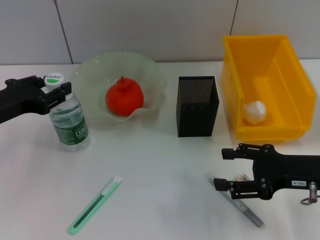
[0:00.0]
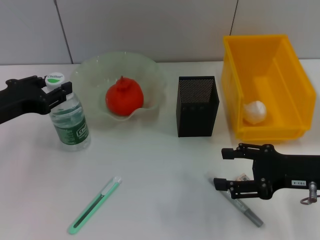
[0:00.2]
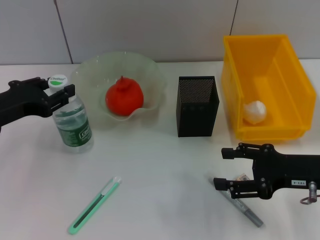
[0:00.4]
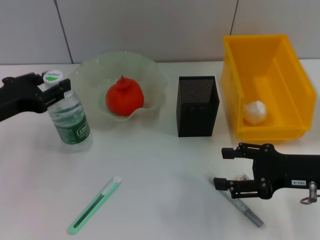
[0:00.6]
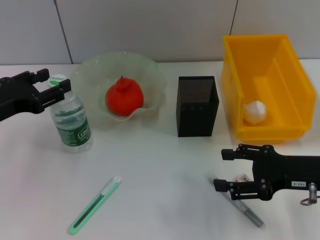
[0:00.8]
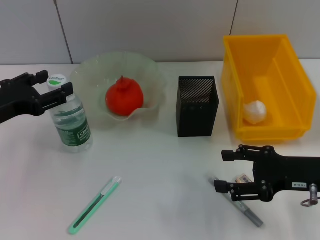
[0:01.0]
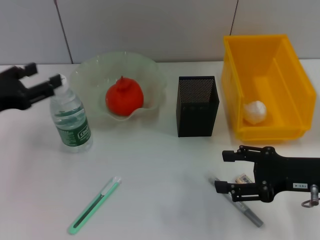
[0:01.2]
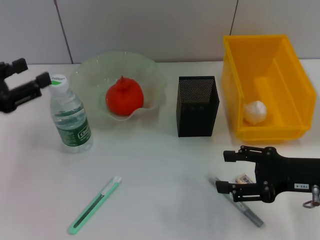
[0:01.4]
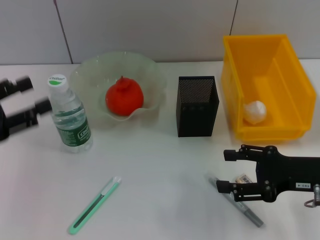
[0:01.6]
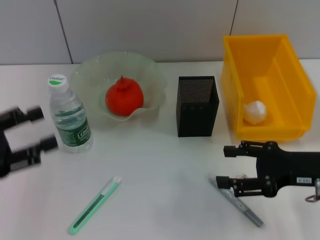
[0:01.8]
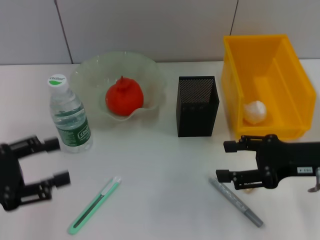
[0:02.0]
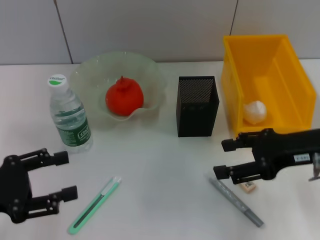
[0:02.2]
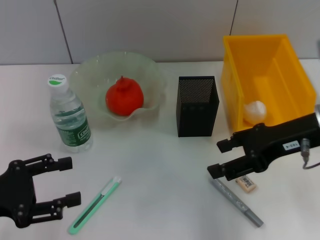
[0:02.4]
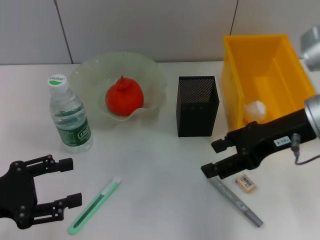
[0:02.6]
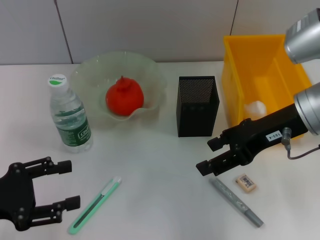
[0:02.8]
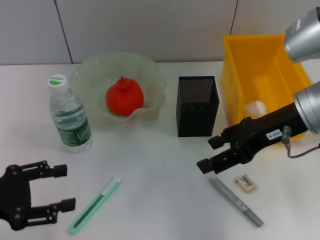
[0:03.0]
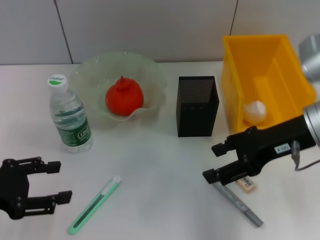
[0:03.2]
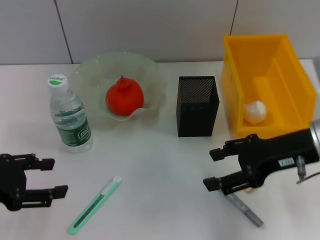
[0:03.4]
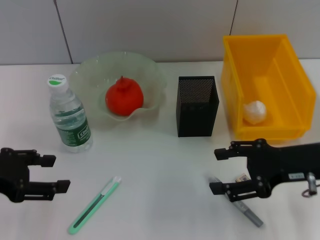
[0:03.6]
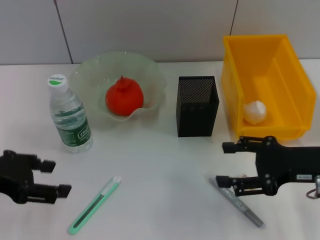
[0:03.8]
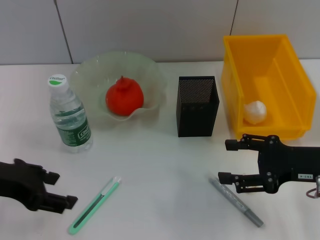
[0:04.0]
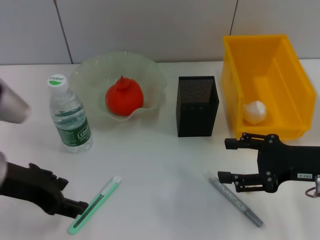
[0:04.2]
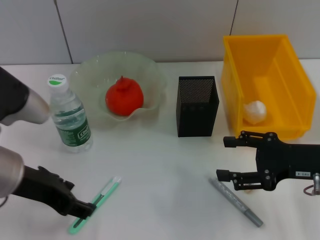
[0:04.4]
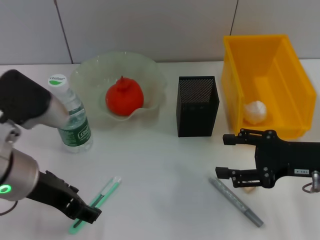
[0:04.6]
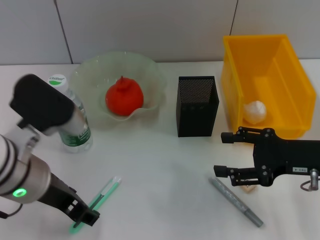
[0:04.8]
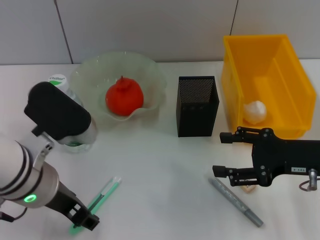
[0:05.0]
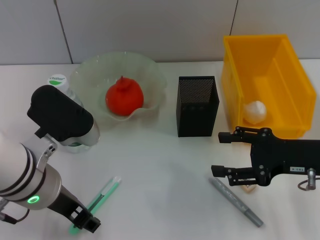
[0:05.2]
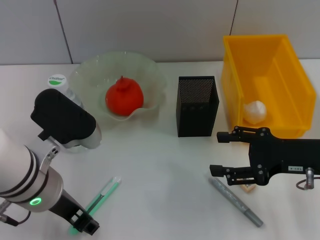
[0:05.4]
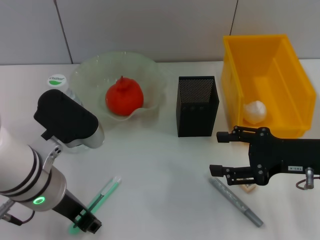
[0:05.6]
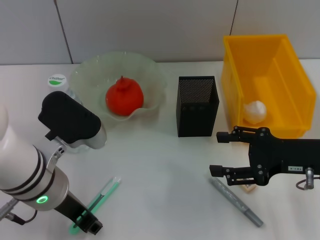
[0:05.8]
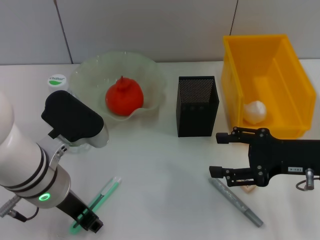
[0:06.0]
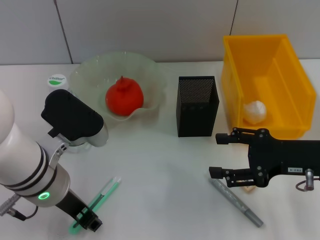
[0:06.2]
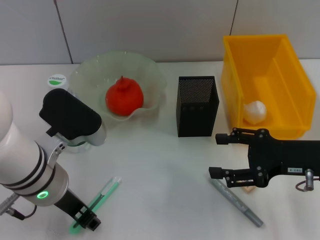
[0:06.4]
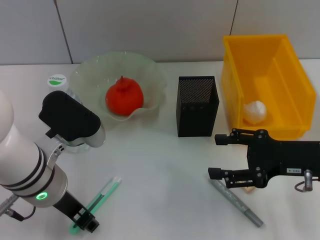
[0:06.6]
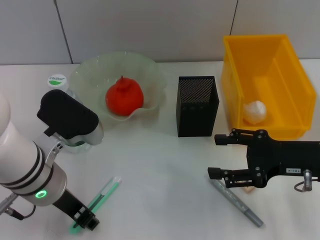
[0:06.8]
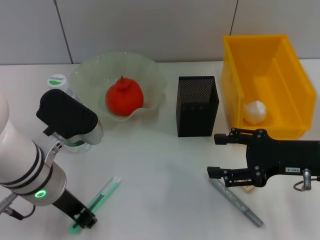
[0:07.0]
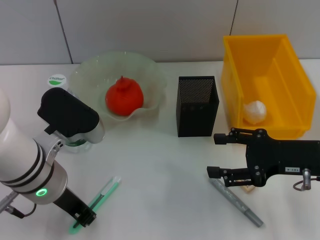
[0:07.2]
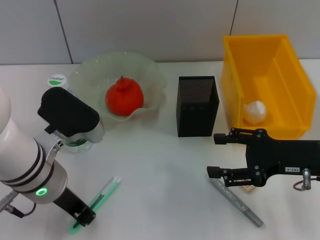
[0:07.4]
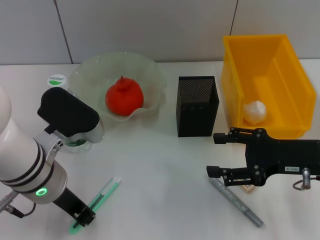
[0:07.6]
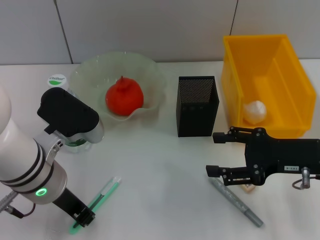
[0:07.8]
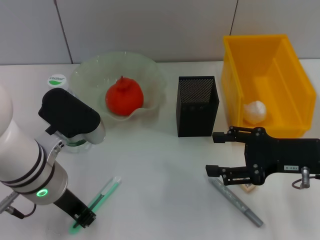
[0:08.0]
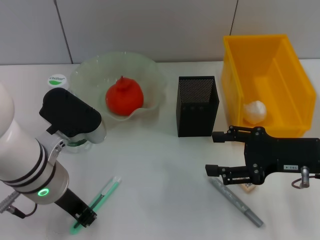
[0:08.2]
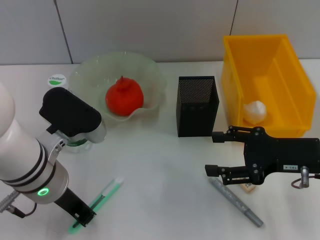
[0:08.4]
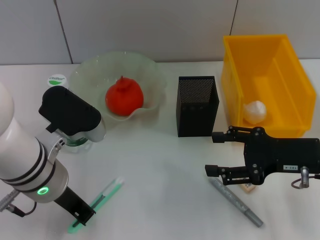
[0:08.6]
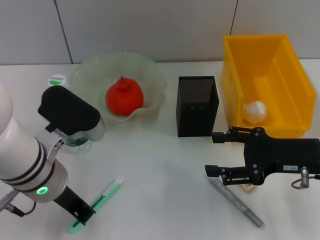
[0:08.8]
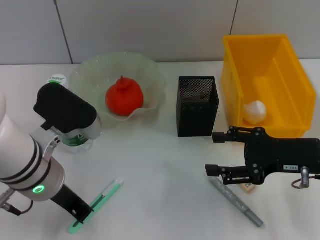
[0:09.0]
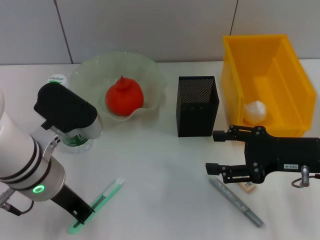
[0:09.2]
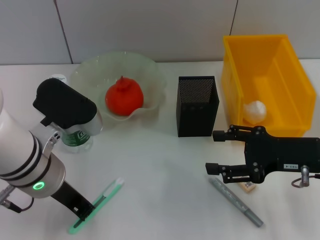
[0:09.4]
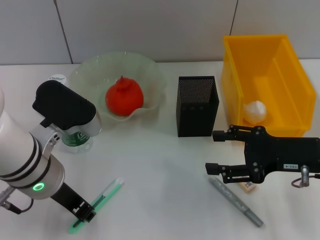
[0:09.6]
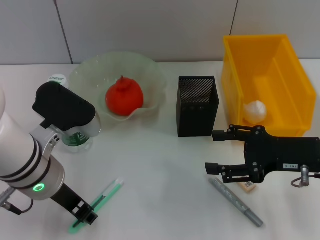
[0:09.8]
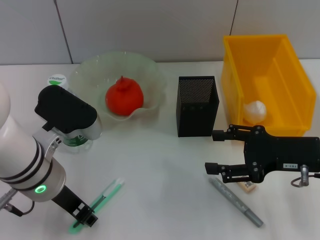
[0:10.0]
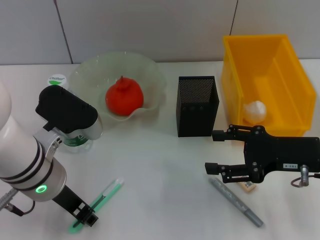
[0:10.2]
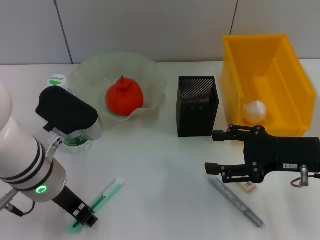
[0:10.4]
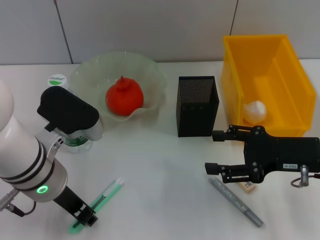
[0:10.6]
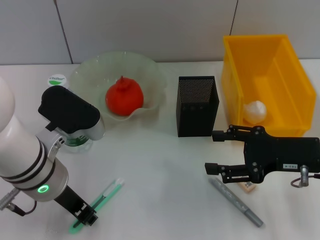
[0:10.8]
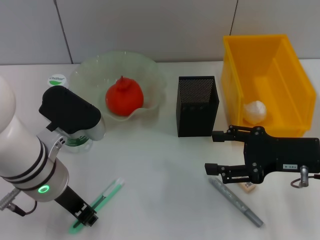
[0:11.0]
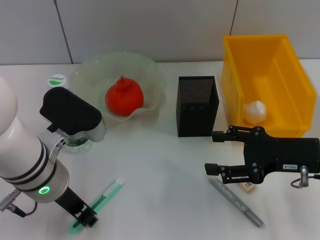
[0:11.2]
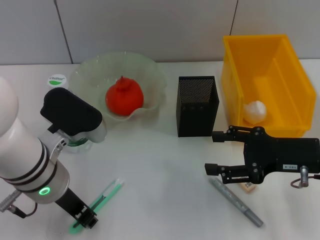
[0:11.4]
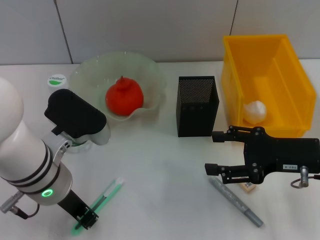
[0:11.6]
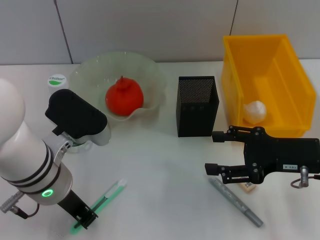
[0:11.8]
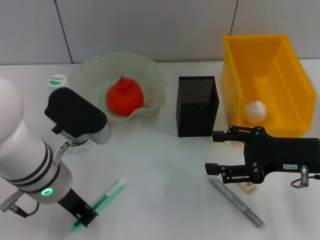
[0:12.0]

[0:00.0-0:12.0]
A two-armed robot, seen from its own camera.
0:00.0 to 0:01.6: The left gripper is displaced backward by approximately 5 cm, and opens its fingers.
0:01.6 to 0:03.0: The right gripper heads upward, to the left and forward, covering roughly 15 cm.
0:03.0 to 0:04.4: The left gripper goes approximately 15 cm to the right and upward. The right gripper goes about 10 cm downward and to the right.
0:04.4 to 0:06.0: The left gripper goes about 5 cm to the right.
0:06.0 to 0:07.6: The left gripper closes up.
0:07.6 to 0:09.0: Both grippers stay about where they are.
0:09.0 to 0:10.4: The left gripper opens up.
0:10.4 to 0:12.0: The left gripper closes up.

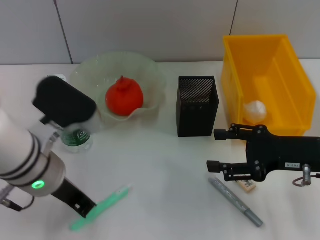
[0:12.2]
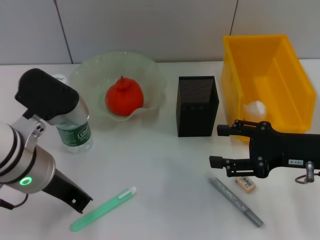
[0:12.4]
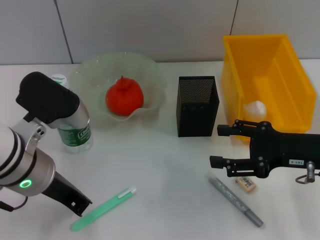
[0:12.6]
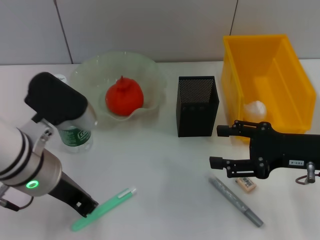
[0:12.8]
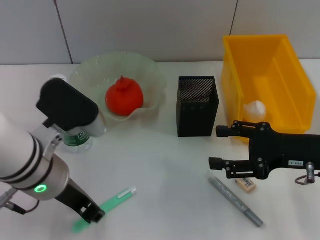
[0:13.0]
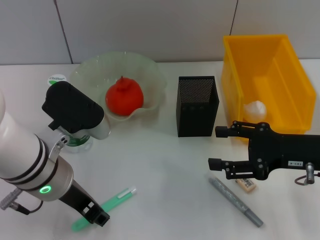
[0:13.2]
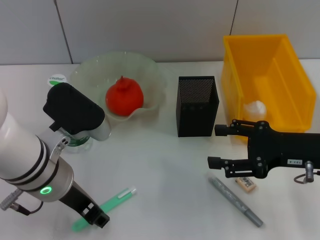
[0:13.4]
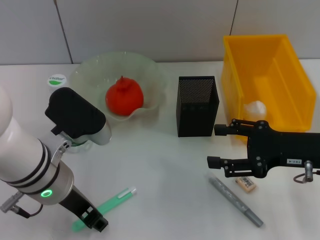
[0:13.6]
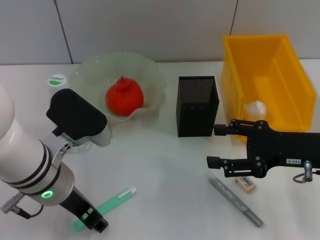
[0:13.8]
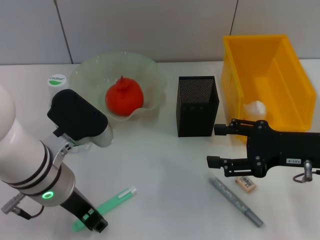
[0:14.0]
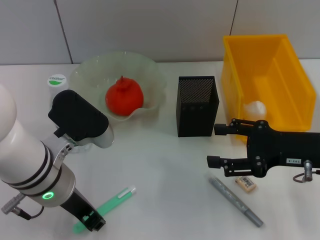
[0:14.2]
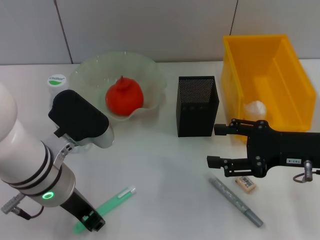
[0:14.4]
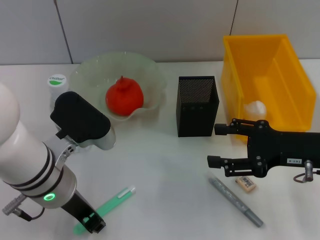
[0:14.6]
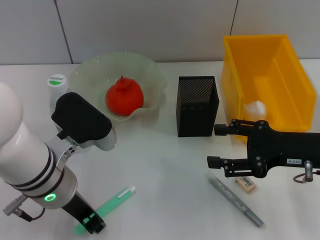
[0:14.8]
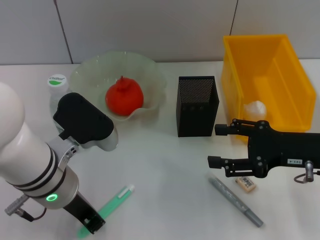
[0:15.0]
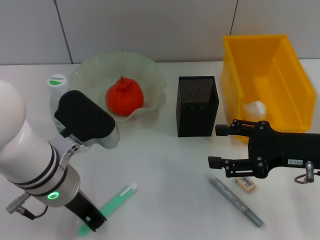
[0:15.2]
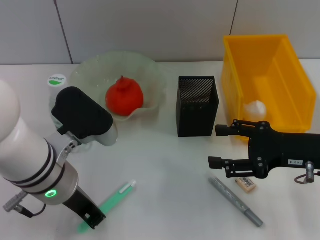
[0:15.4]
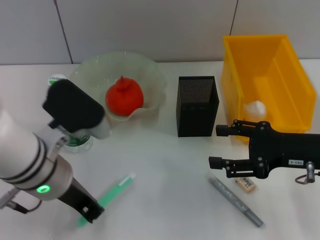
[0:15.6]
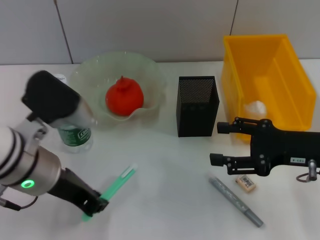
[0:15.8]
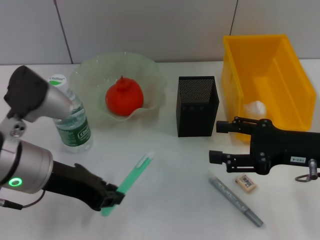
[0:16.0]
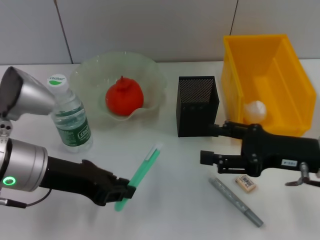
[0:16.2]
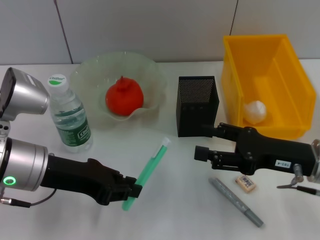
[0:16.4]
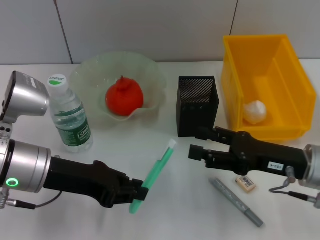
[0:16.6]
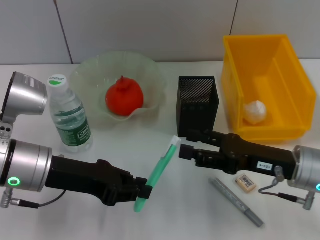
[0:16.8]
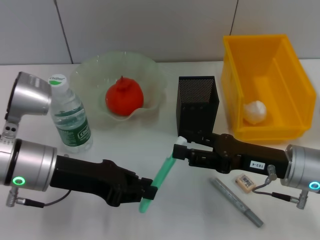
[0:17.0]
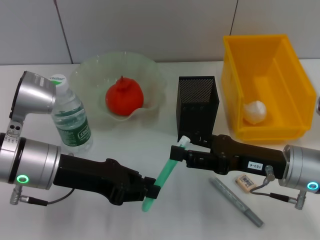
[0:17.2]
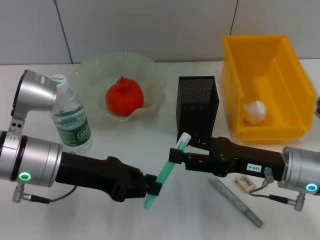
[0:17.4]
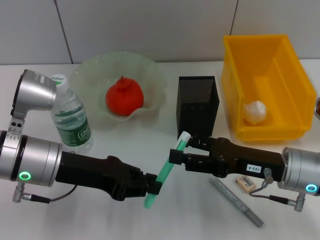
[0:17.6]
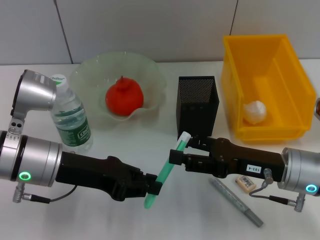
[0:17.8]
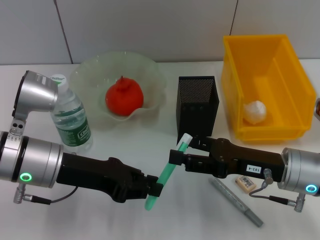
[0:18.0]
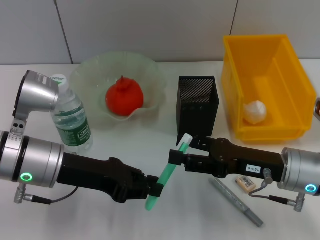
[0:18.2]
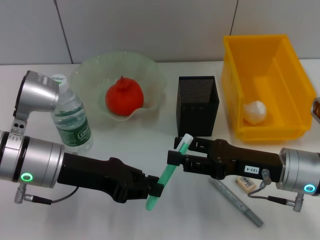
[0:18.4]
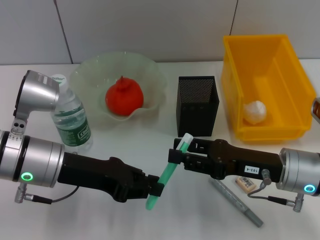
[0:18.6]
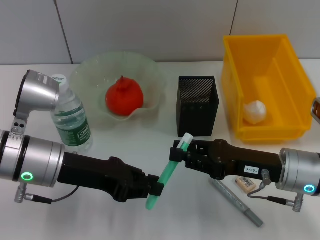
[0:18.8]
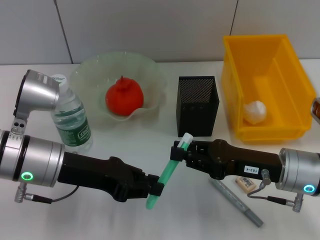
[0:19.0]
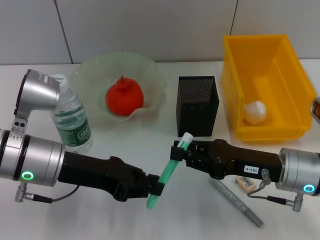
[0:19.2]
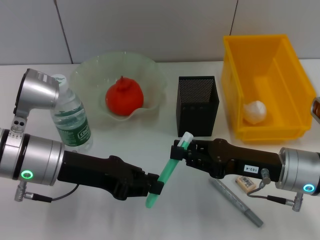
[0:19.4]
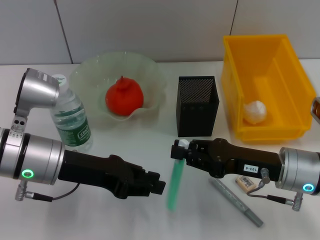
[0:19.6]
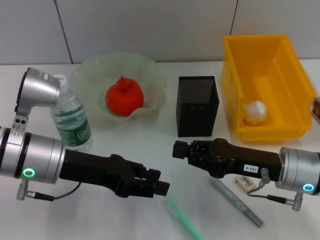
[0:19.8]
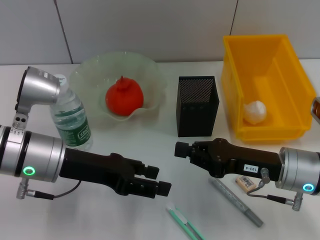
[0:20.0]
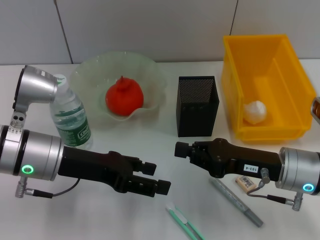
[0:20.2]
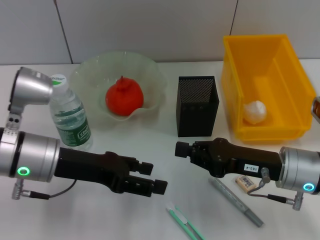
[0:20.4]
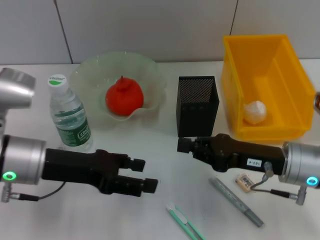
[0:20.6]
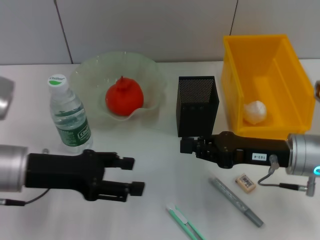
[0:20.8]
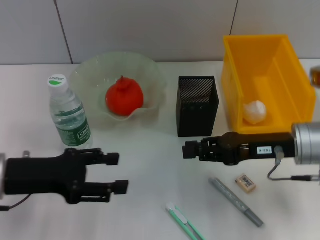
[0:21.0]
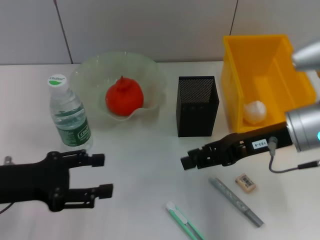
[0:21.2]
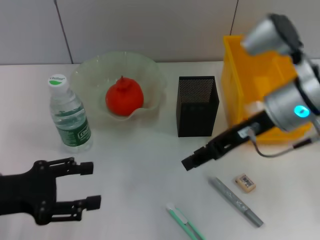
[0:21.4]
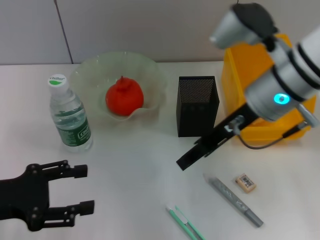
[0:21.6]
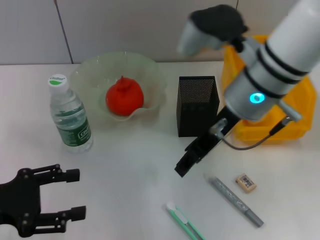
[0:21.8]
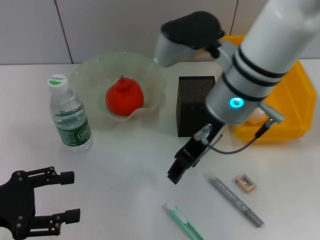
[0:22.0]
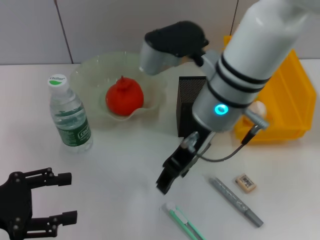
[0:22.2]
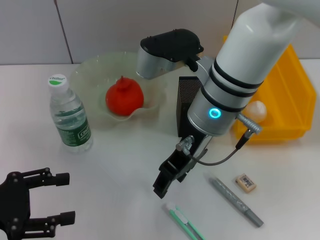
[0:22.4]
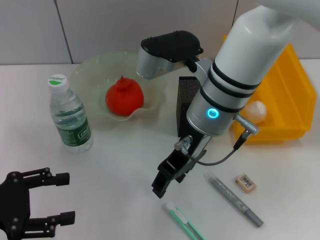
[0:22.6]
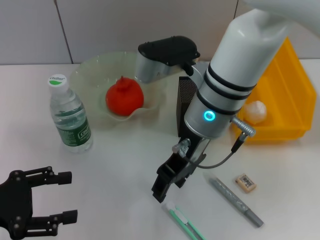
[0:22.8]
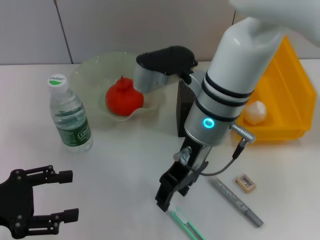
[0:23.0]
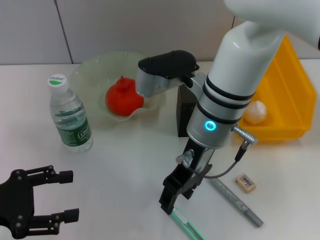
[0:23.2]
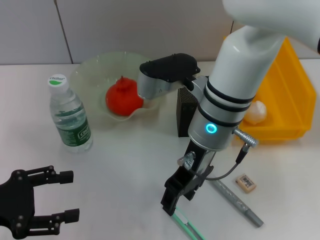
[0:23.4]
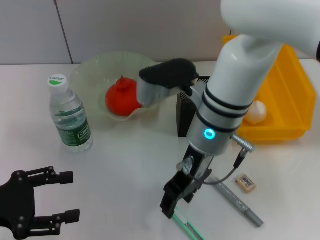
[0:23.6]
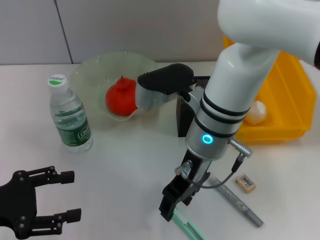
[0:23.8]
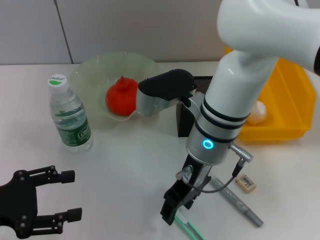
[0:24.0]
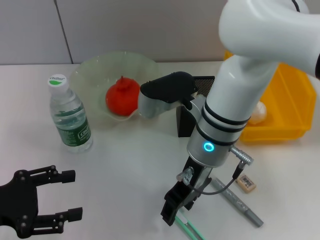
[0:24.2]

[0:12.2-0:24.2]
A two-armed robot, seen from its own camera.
Step, 0:12.2 to 0:15.2: Grab the blue utility knife with the left hand.
0:12.2 to 0:13.8: The left gripper opens its fingers.
0:13.8 to 0:15.2: The left gripper closes up.
0:15.2 to 0:16.6: The left gripper goes about 5 cm to the left.
0:16.6 to 0:18.2: The grippers make only small movements.
0:18.2 to 0:19.8: The right gripper closes its fingers.
0:19.8 to 0:21.2: The right gripper moves upward, roughly 10 cm; the left gripper goes some 10 cm to the left, and opens up.
0:21.2 to 0:22.6: The right gripper goes roughly 15 cm to the left, and opens up. The left gripper shifts roughly 5 cm to the left.
0:22.6 to 0:24.2: The right gripper is displaced downward by about 5 cm.
